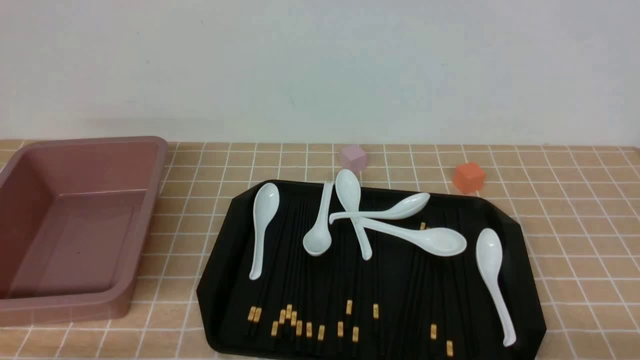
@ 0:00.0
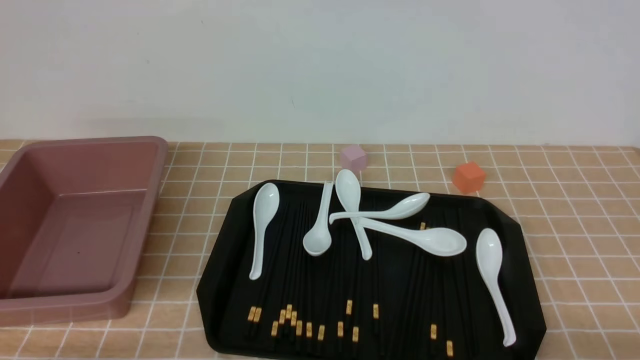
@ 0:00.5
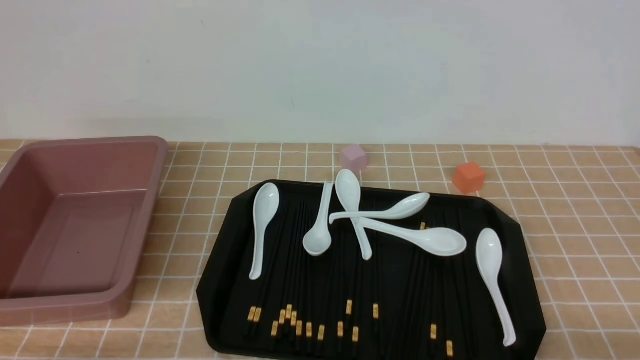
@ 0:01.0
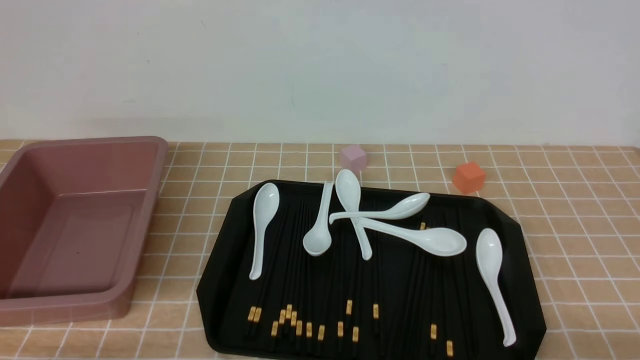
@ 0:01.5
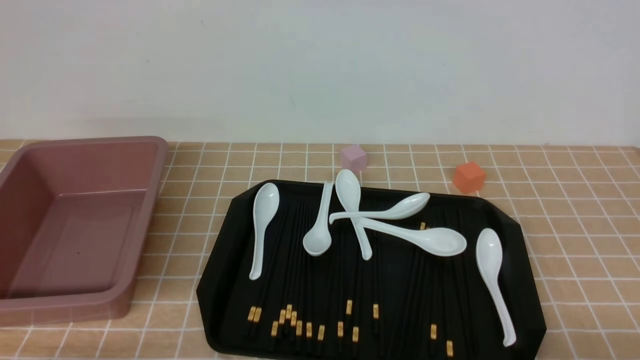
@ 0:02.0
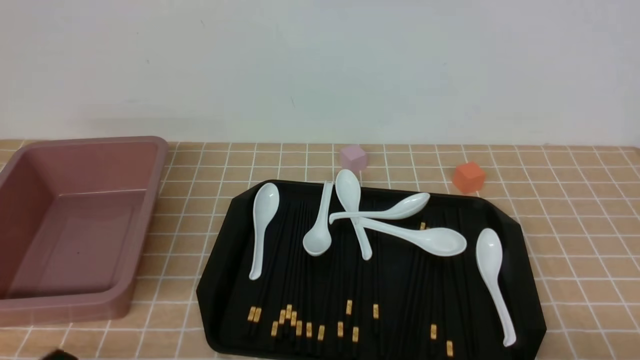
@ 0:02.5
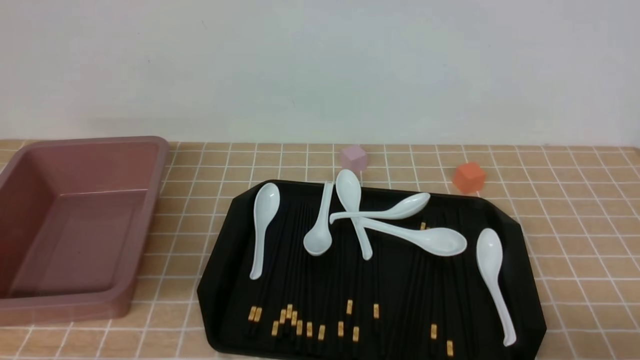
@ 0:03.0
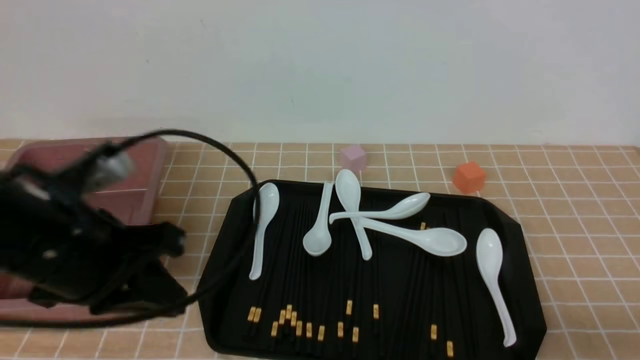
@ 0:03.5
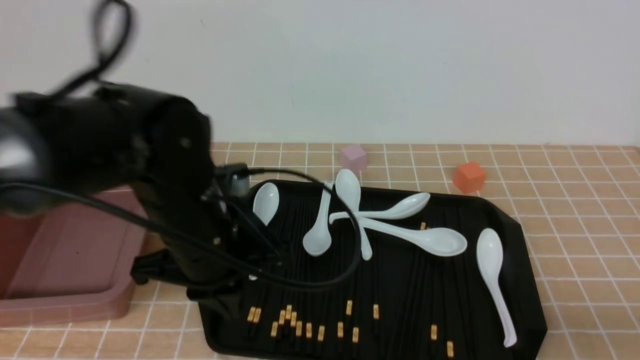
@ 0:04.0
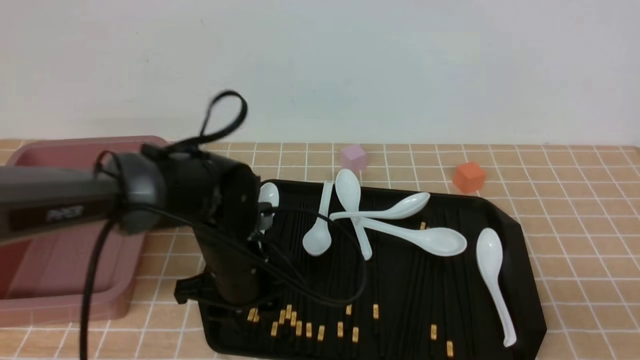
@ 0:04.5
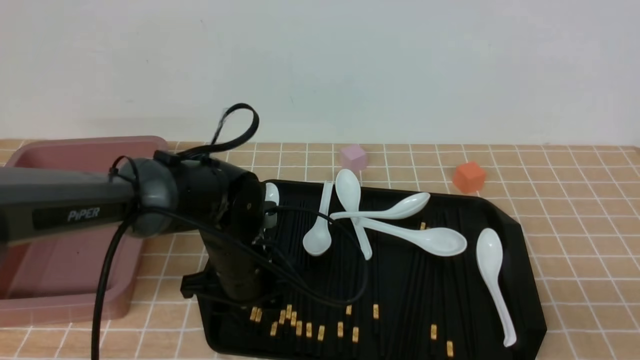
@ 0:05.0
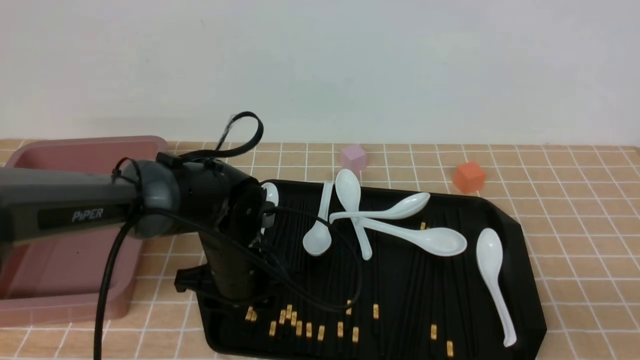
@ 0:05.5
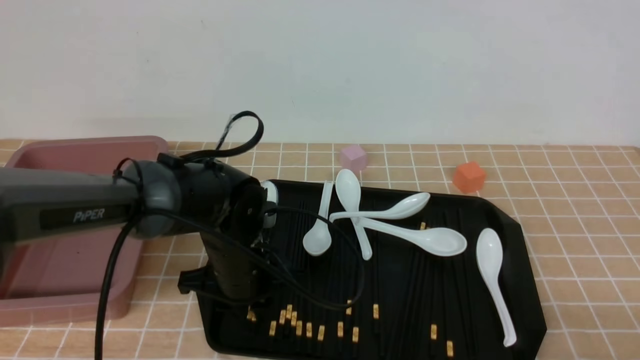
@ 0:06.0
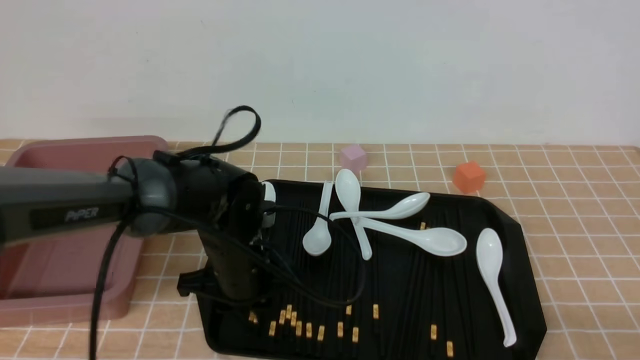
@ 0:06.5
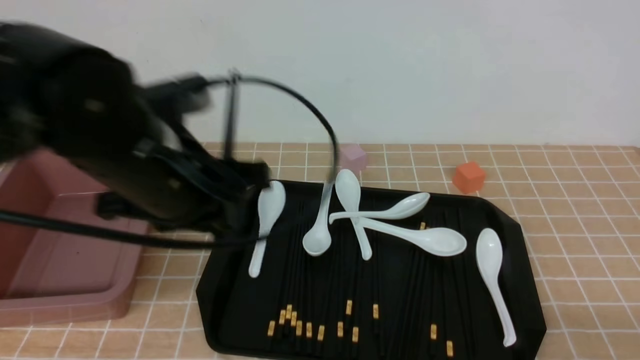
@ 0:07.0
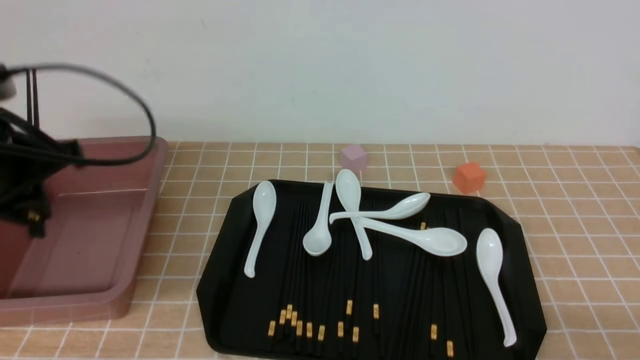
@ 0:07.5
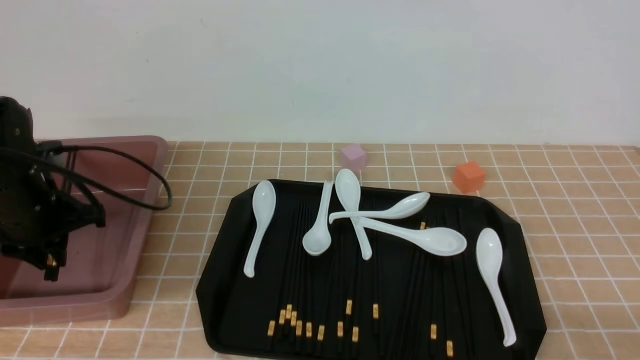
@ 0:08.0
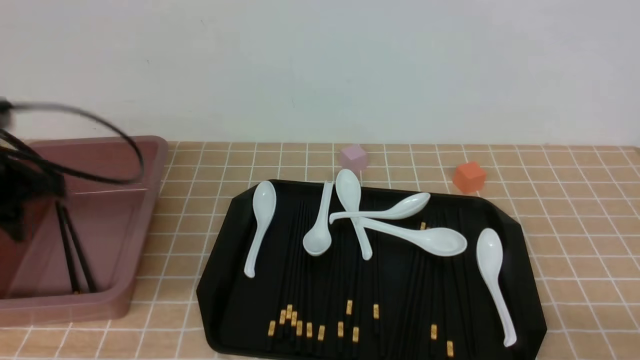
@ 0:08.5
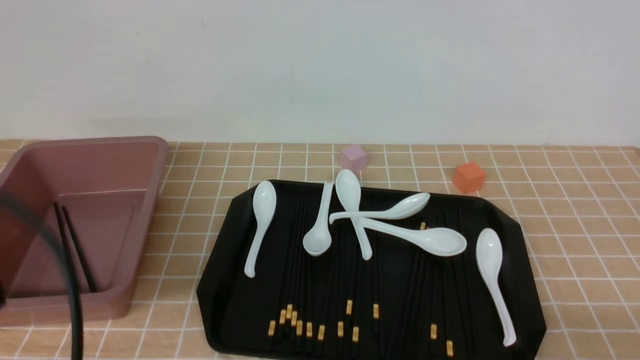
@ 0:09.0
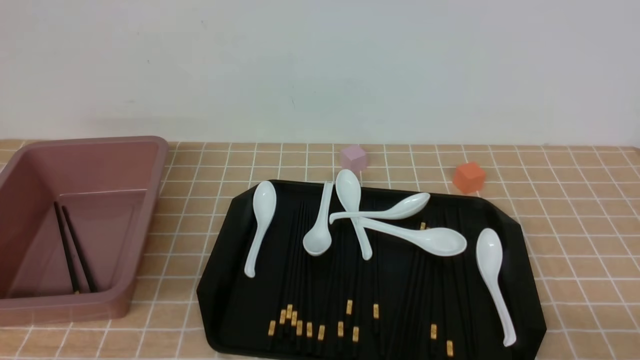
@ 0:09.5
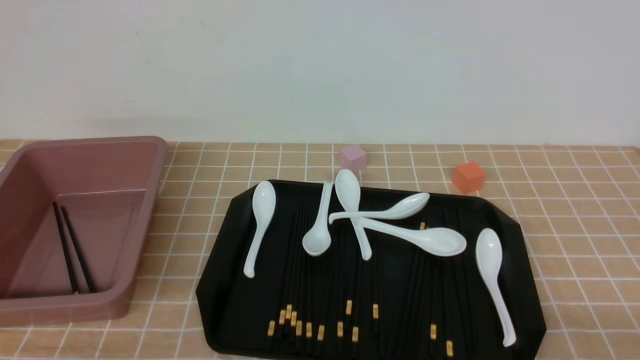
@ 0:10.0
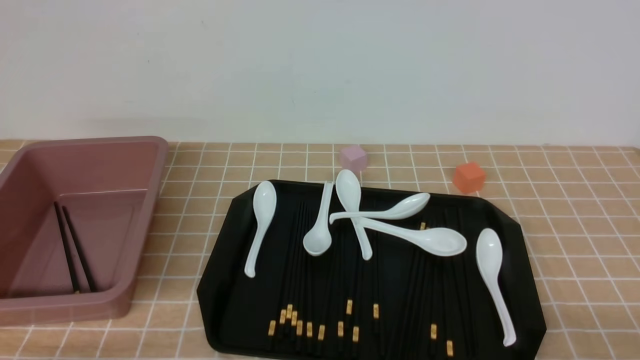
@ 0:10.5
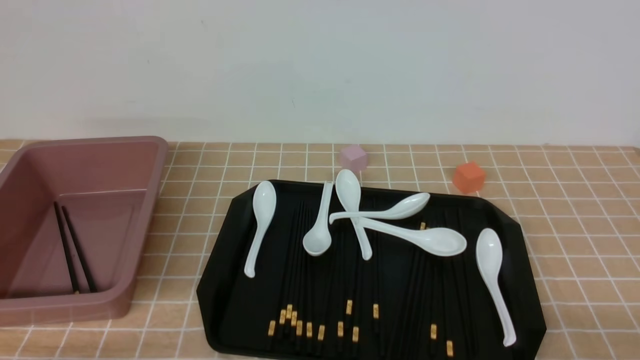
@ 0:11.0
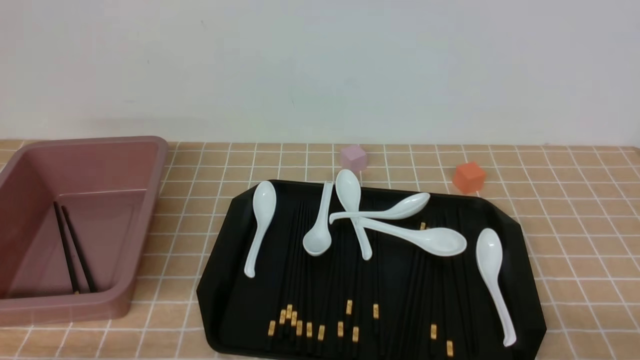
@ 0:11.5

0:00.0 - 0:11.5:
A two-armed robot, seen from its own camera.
Step, 0:00.0 - 0:06.5: use the left arm to grab a pair of chopsticks.
Step, 0:07.0 - 0:08.5: use the left arm to put the chopsticks into the lunch box.
0:02.0 - 0:04.0: The right gripper goes approximately 5 cm upward, and closes its fingers; the left gripper travels forward and to the right by about 25 cm, and closes.
0:04.0 - 0:06.0: The left gripper is displaced downward by approximately 10 cm, and opens up.
0:06.0 - 0:07.5: The left gripper shifts about 25 cm to the left and upward.
0:07.5 - 0:09.5: The left gripper shifts approximately 25 cm backward, and closes up.
